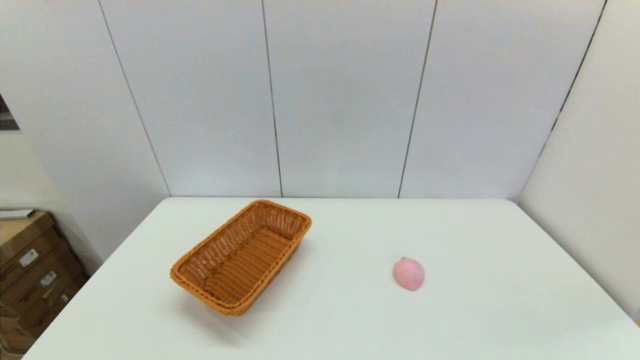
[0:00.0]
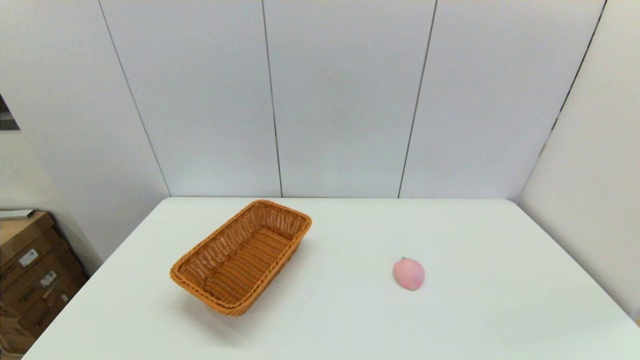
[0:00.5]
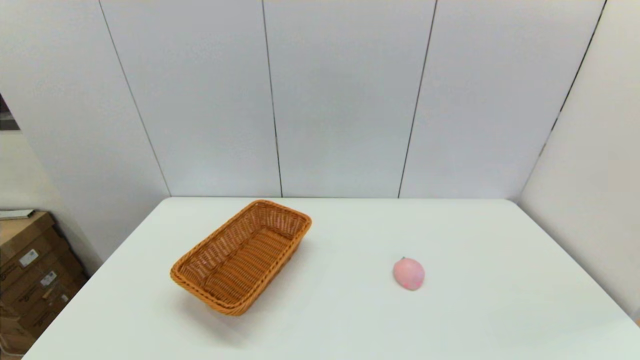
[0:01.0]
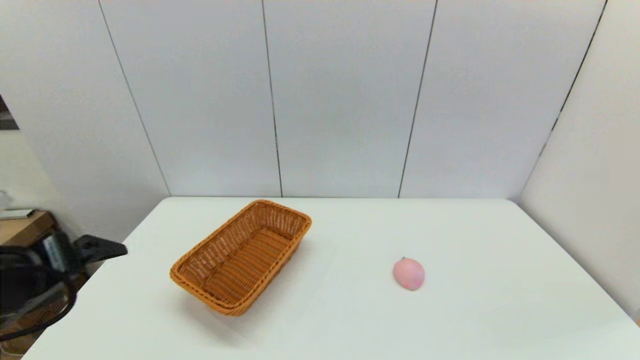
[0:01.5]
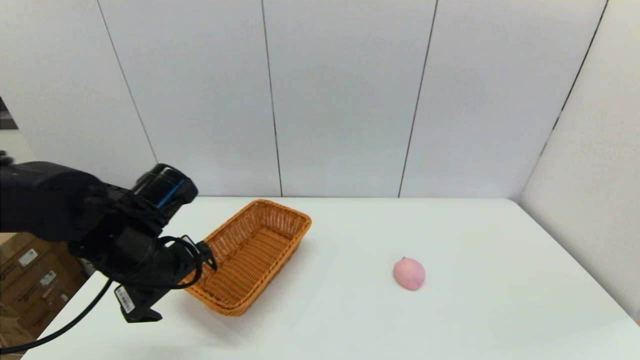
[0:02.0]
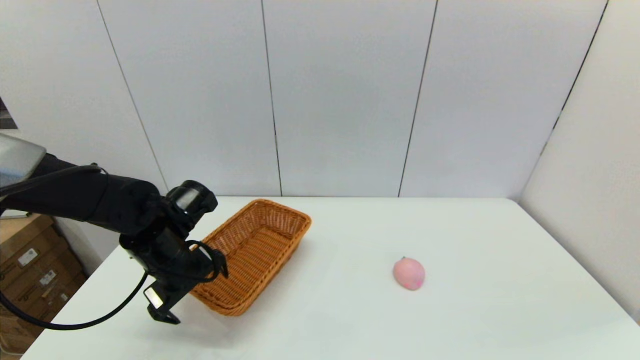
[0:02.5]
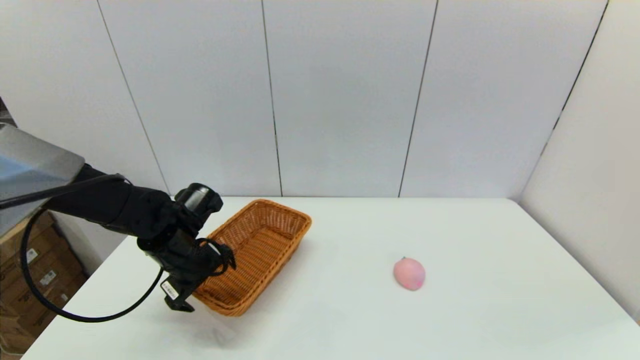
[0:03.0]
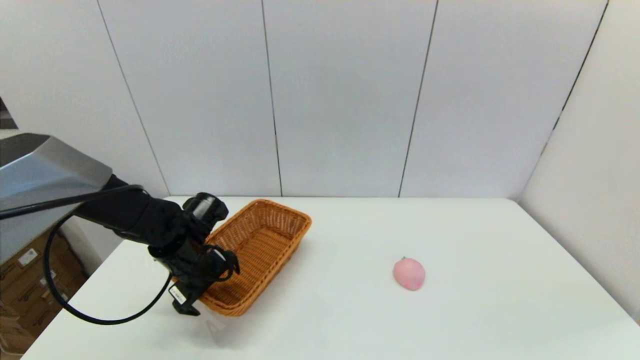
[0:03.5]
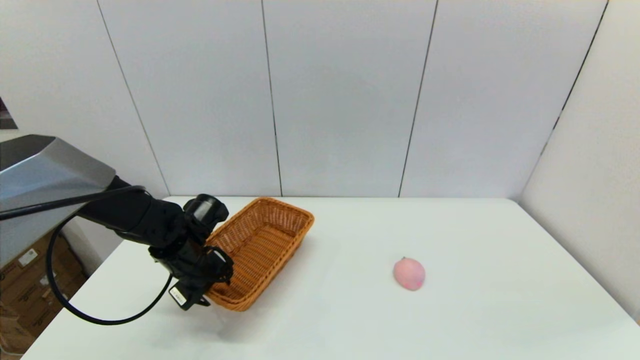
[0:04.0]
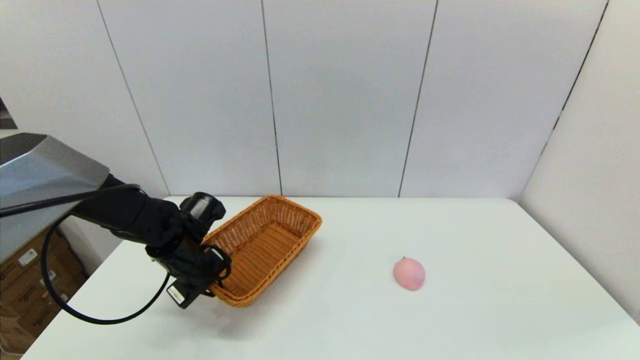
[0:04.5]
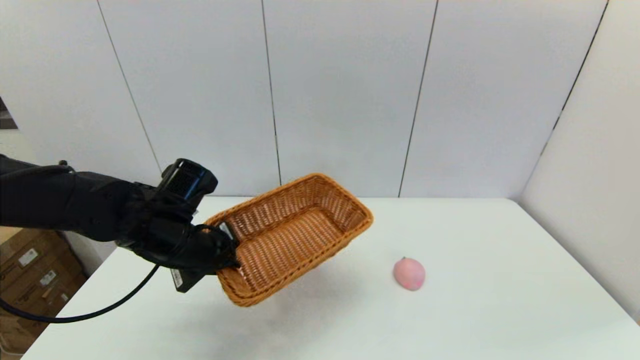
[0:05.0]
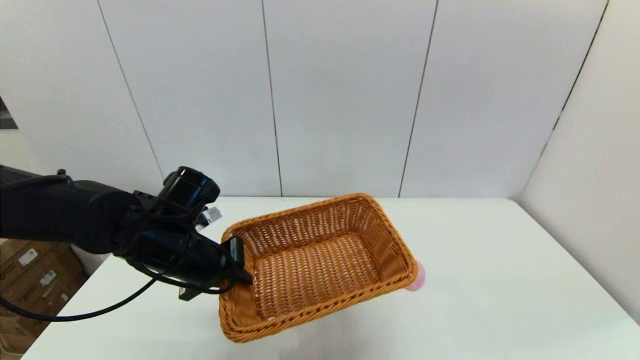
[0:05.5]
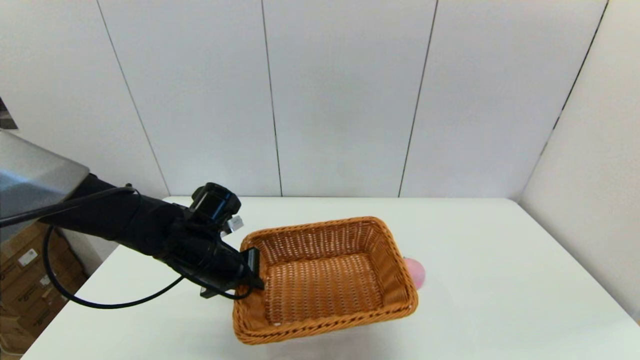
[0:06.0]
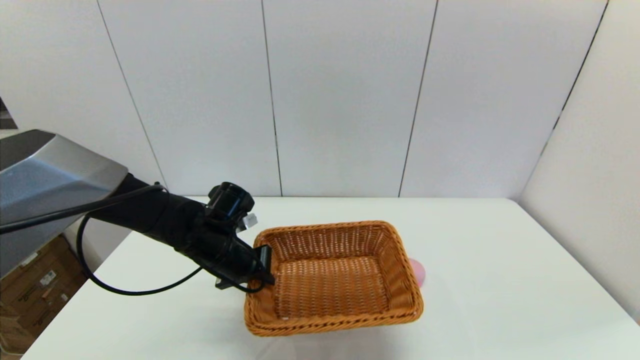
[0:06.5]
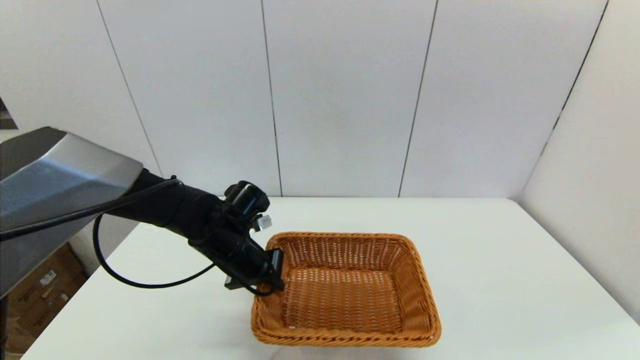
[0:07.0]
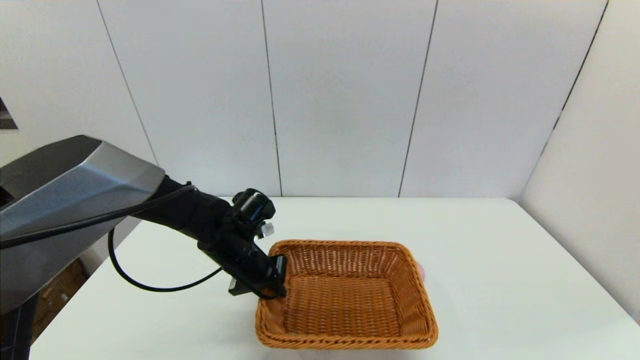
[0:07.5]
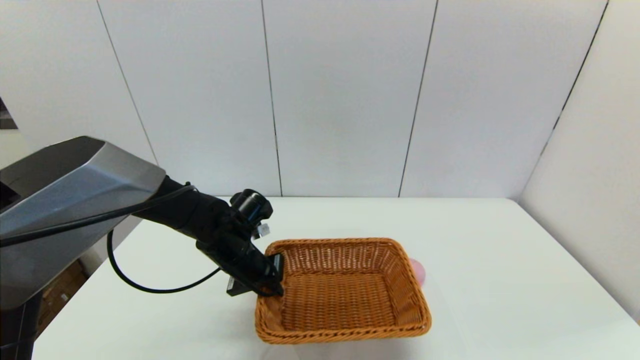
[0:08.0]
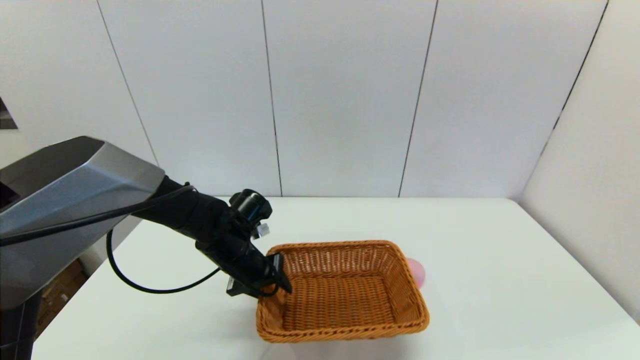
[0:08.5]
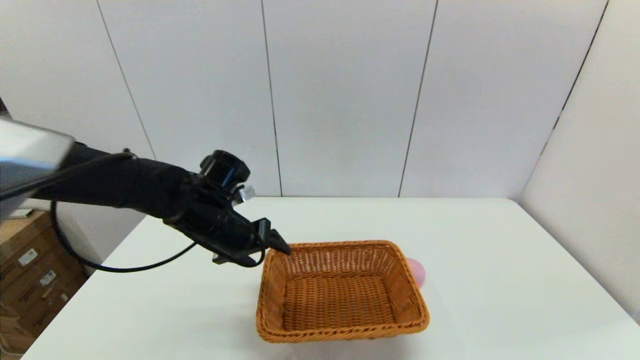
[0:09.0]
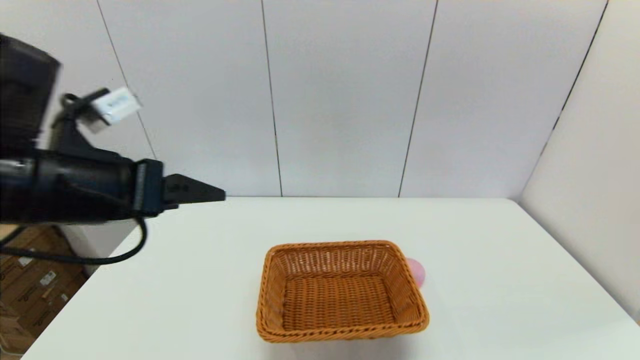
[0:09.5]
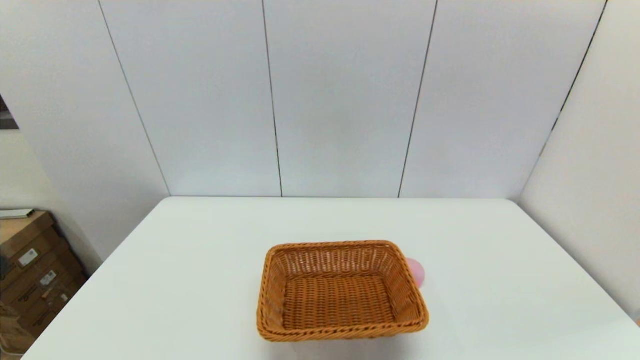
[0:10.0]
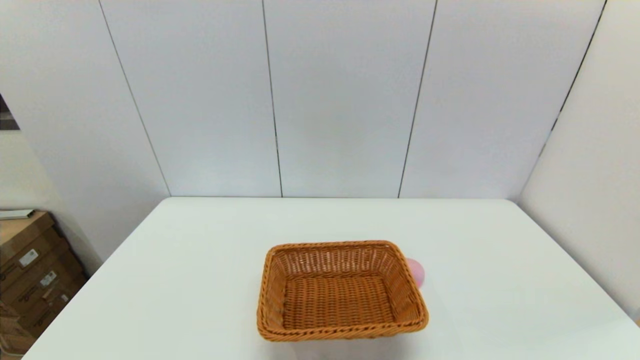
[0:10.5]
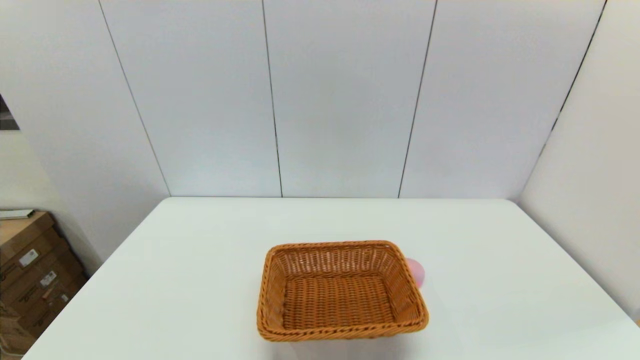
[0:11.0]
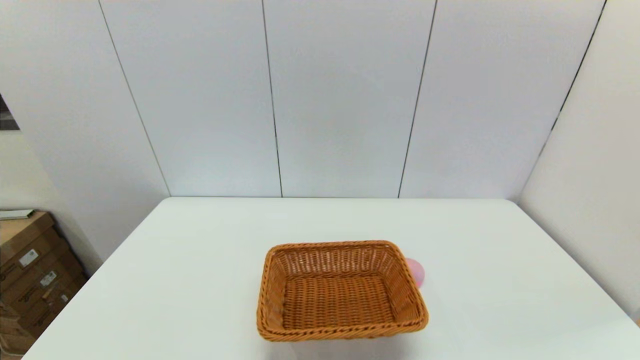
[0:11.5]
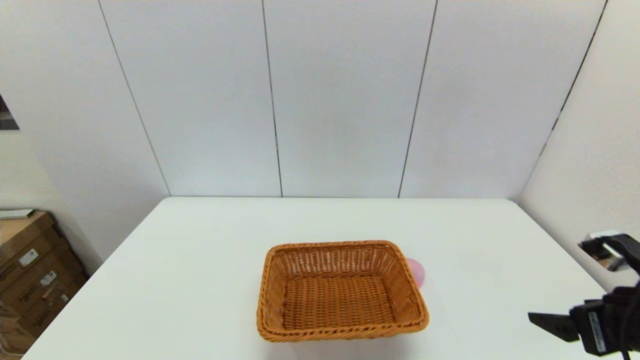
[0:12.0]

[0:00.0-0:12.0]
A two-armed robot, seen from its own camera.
Step, 0:00.0 to 0:04.0: Grasp the light basket with the left gripper.
Step, 0:04.5 to 0:08.5: Place the light basket on the middle of the table with the left gripper.
0:00.0 to 0:02.0: The left gripper moves forward, about 25 cm.
0:02.0 to 0:04.0: The left gripper goes about 10 cm downward and forward, and closes.
0:04.0 to 0:06.0: The left gripper closes.
0:06.0 to 0:08.0: The left gripper changes place by about 5 cm.
0:08.0 to 0:10.0: The left gripper travels backward, upward and to the left by roughly 40 cm, and opens its fingers.
0:10.0 to 0:12.0: The right gripper shifts about 20 cm forward.

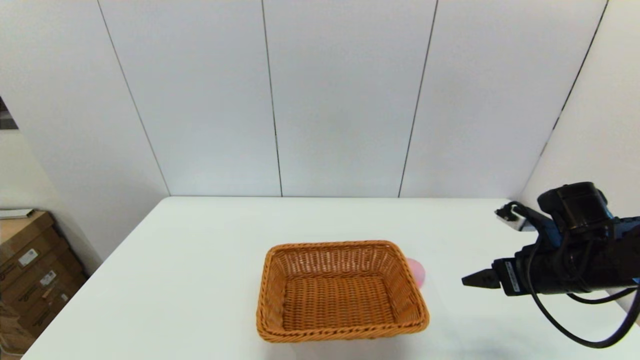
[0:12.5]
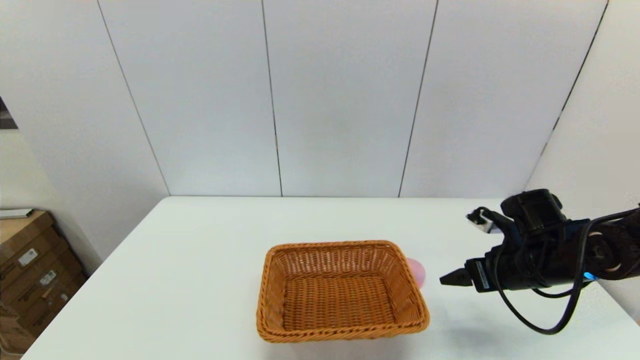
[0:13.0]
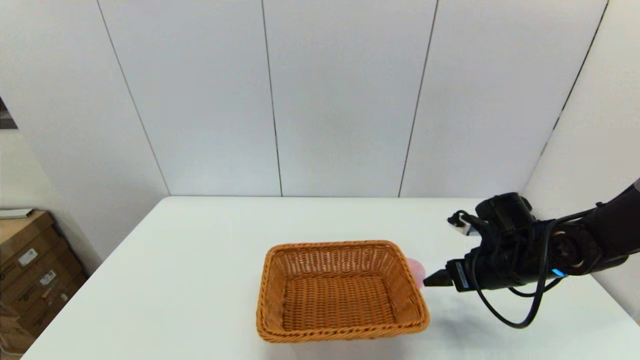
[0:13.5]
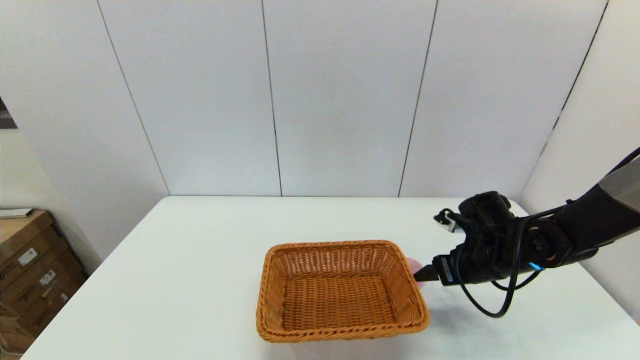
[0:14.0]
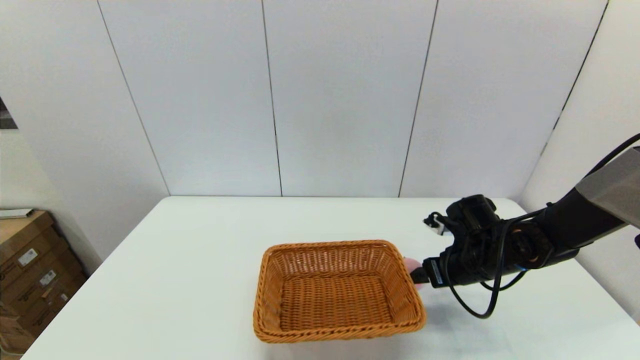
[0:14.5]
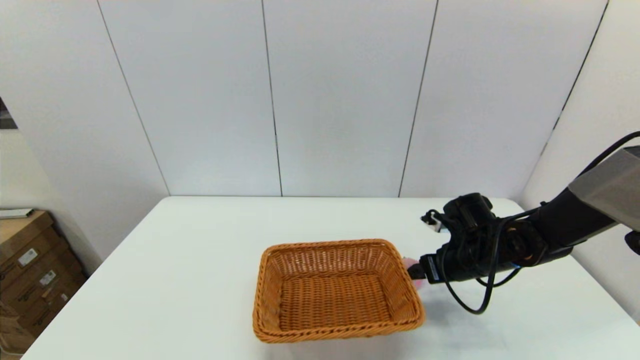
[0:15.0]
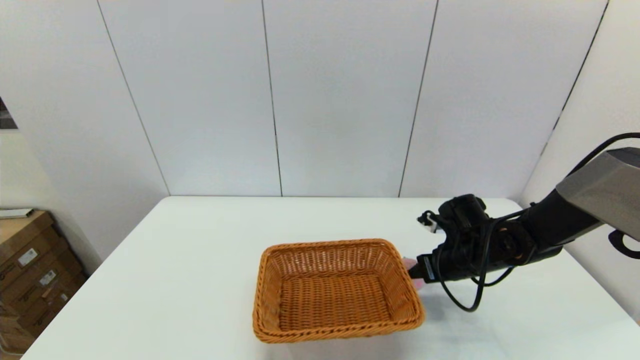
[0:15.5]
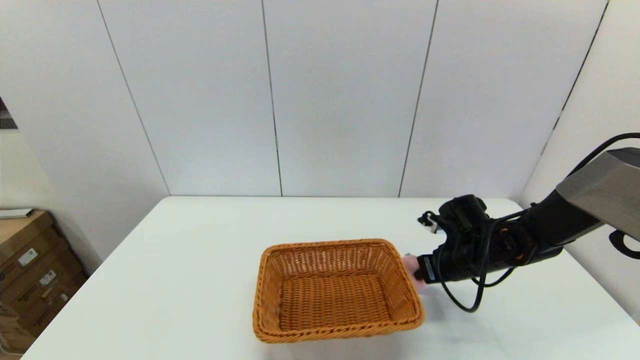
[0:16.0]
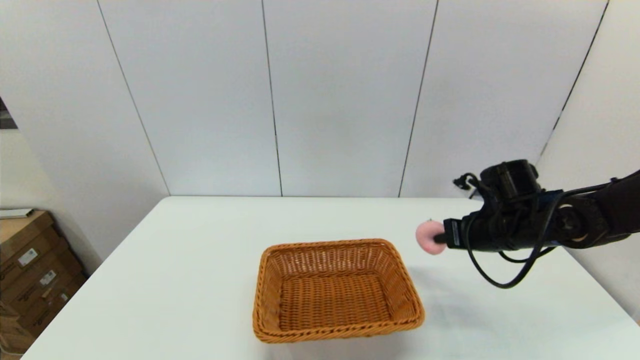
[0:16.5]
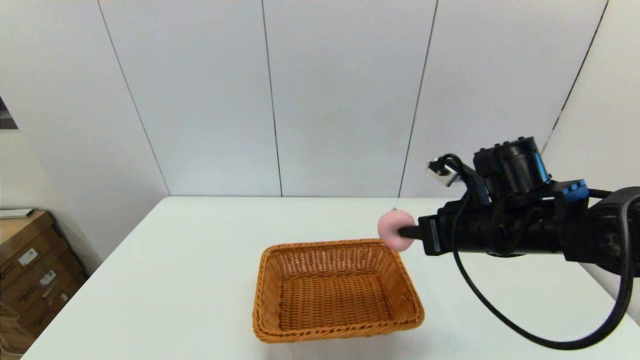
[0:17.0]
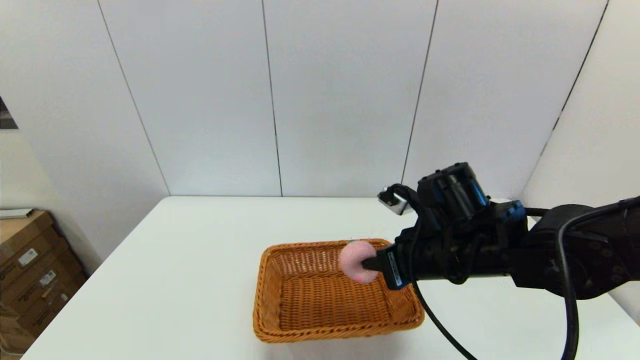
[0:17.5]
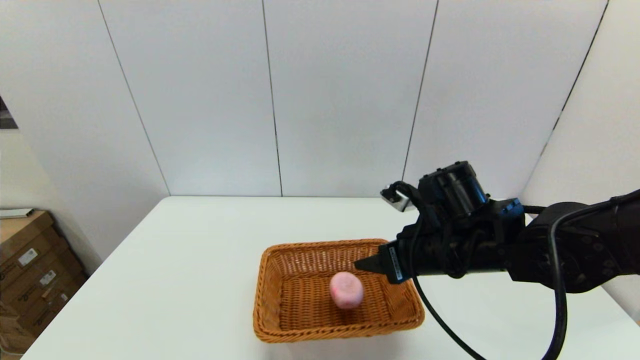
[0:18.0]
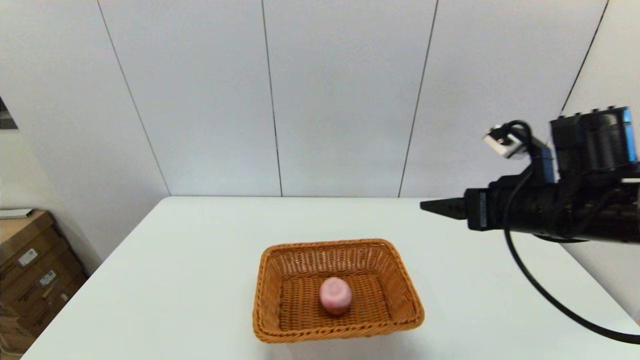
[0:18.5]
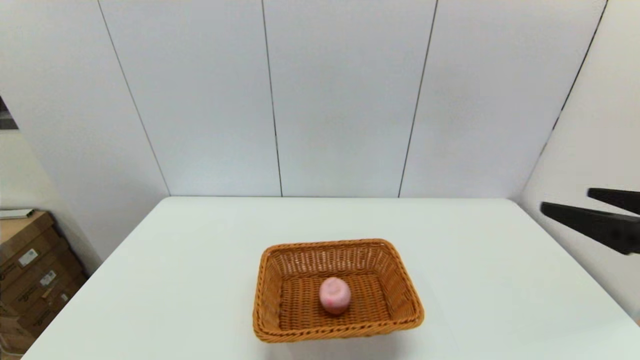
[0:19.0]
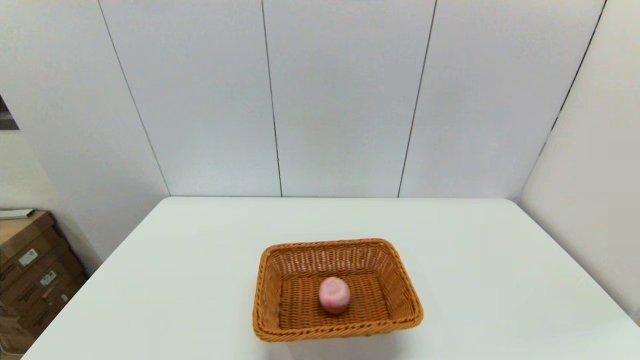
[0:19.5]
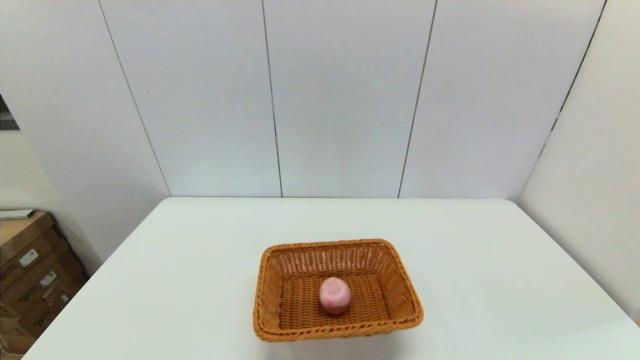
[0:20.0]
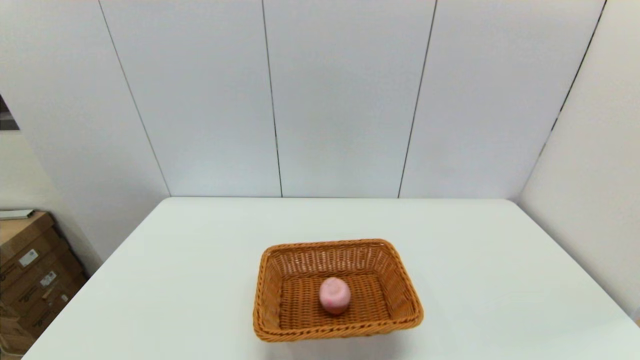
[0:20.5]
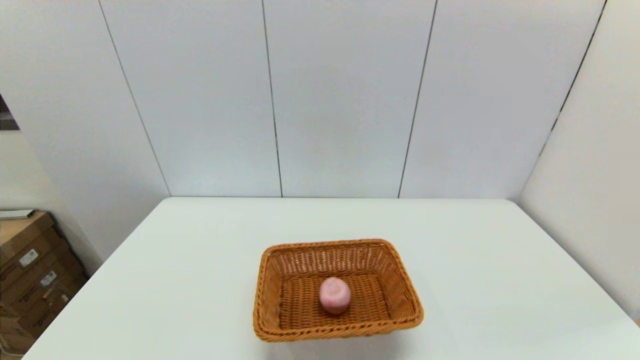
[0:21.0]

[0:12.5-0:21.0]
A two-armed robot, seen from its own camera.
Step, 0:12.5 to 0:15.5: Grasp the peach with the right gripper.
Step, 0:16.0 to 0:18.0: Place the peach into the light basket with the right gripper.
0:12.5 to 0:14.5: The right gripper moves forward, downward and to the left, about 10 cm.
0:14.5 to 0:16.5: The right gripper moves upward, approximately 5 cm, and closes its fingers.
0:16.5 to 0:19.0: The right gripper travels backward and upward by about 25 cm, and opens up.
0:19.0 to 0:21.0: The right gripper is displaced downward and backward by roughly 25 cm.
